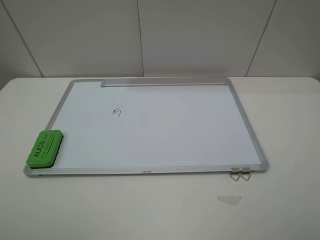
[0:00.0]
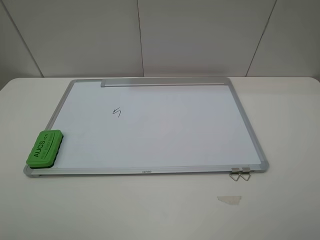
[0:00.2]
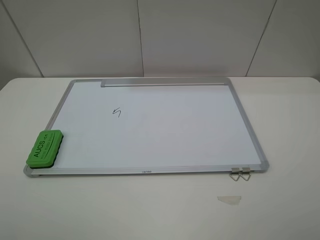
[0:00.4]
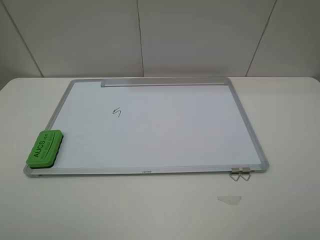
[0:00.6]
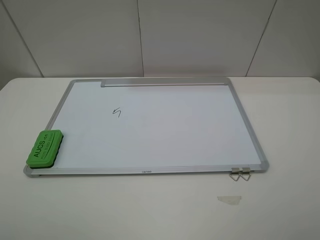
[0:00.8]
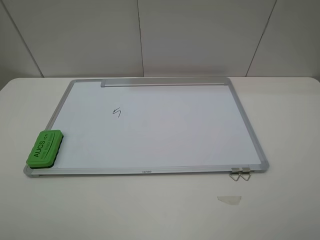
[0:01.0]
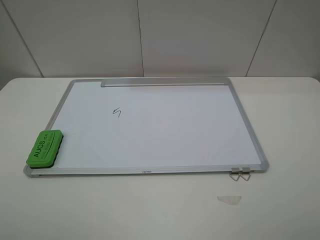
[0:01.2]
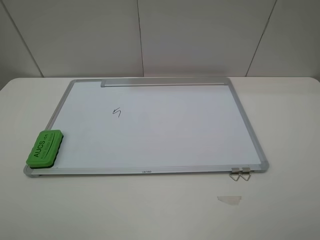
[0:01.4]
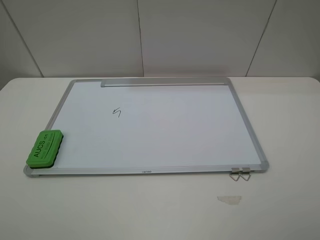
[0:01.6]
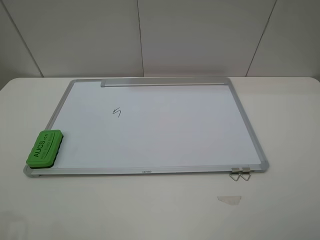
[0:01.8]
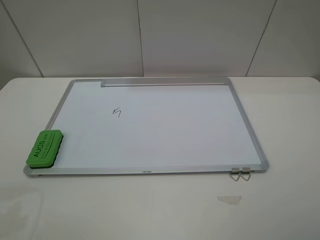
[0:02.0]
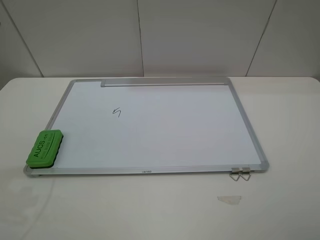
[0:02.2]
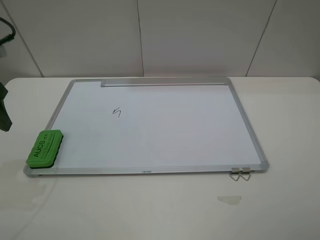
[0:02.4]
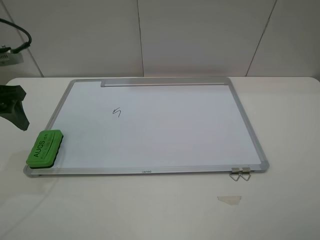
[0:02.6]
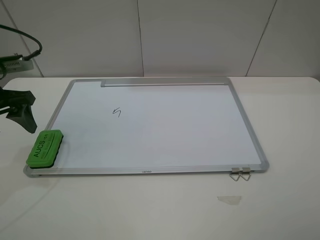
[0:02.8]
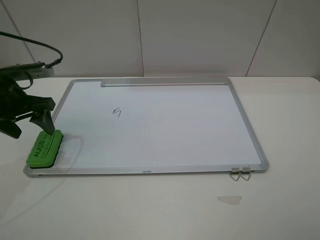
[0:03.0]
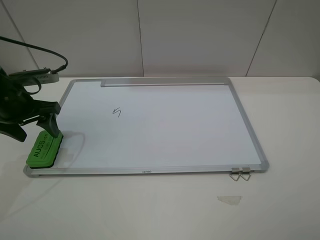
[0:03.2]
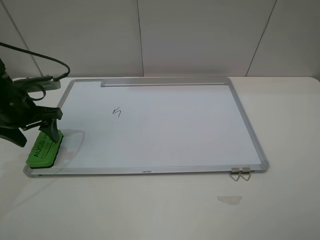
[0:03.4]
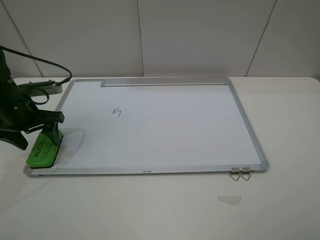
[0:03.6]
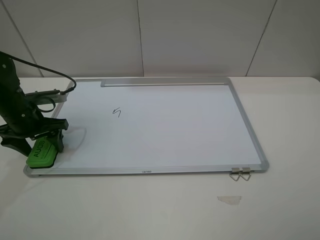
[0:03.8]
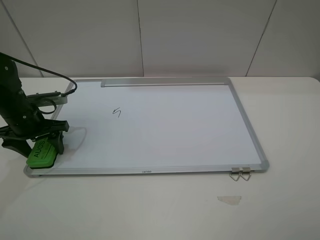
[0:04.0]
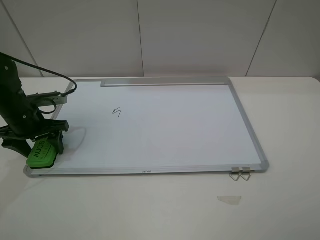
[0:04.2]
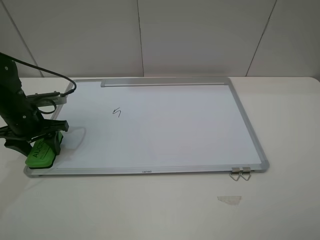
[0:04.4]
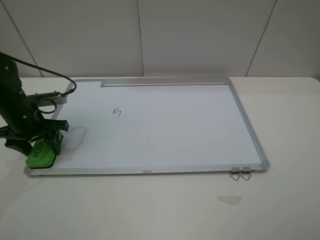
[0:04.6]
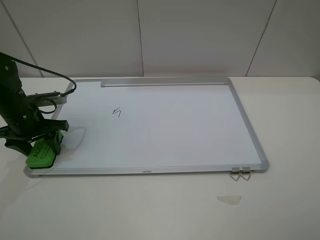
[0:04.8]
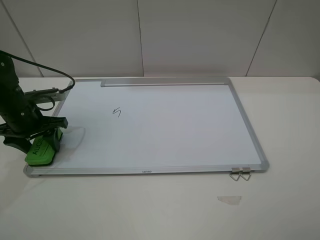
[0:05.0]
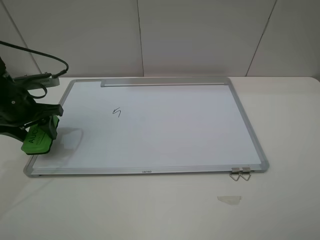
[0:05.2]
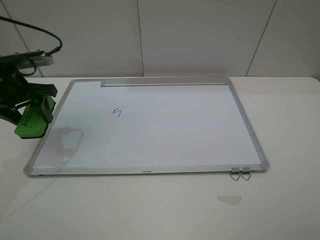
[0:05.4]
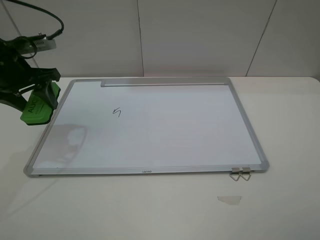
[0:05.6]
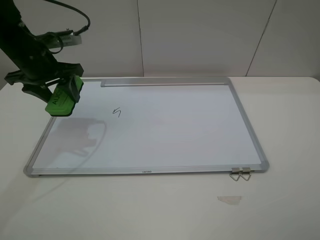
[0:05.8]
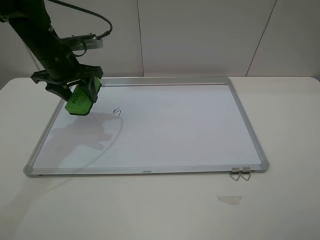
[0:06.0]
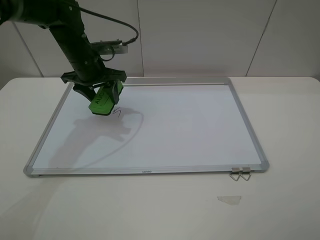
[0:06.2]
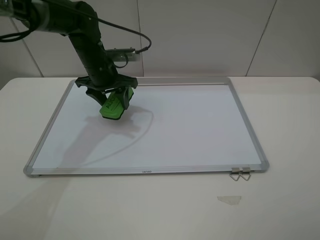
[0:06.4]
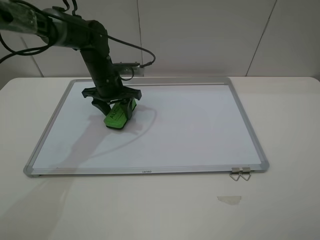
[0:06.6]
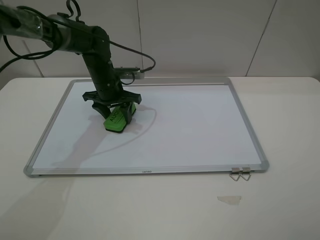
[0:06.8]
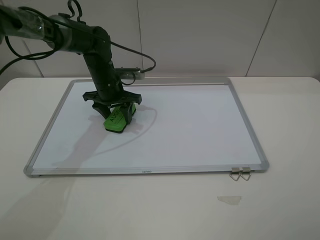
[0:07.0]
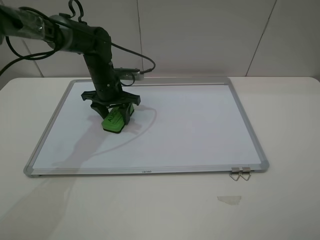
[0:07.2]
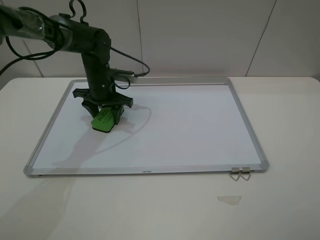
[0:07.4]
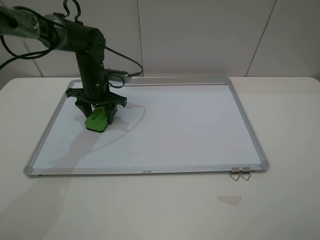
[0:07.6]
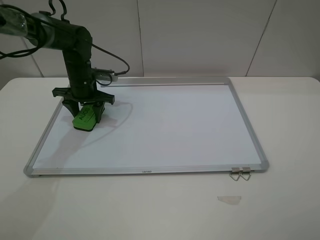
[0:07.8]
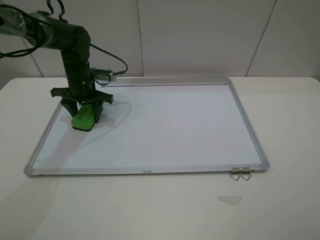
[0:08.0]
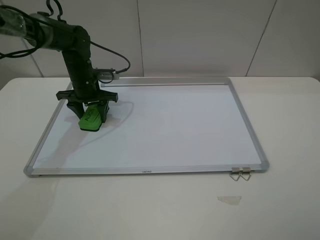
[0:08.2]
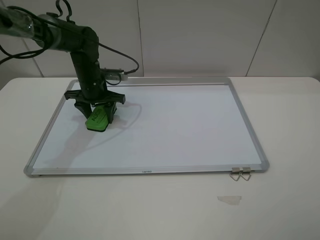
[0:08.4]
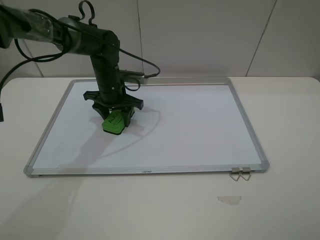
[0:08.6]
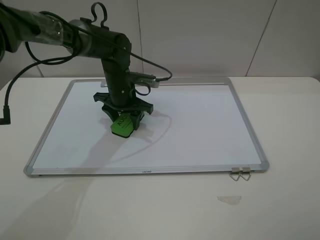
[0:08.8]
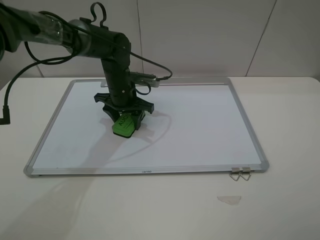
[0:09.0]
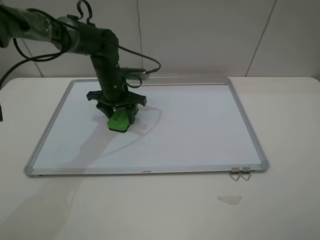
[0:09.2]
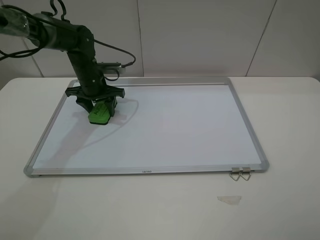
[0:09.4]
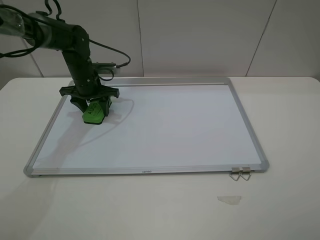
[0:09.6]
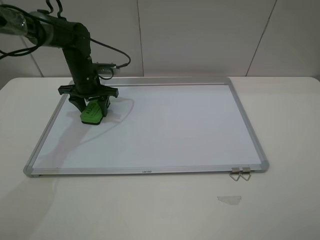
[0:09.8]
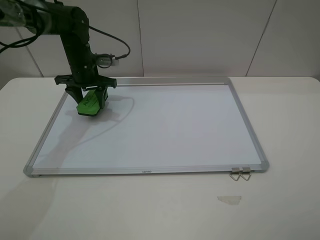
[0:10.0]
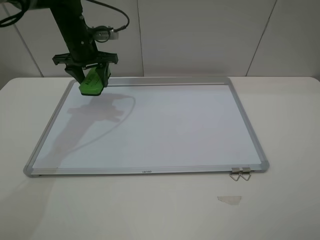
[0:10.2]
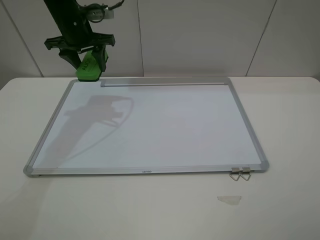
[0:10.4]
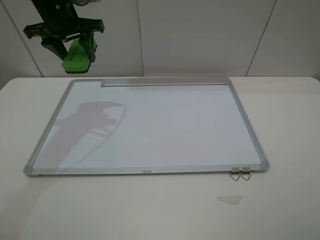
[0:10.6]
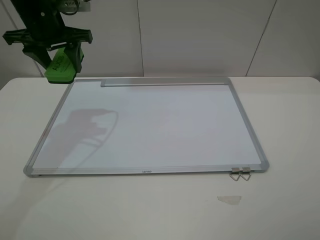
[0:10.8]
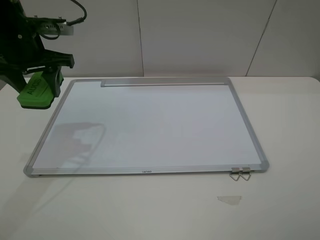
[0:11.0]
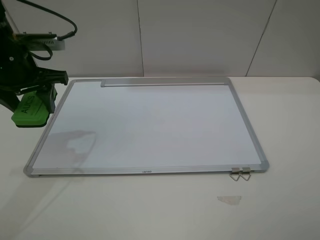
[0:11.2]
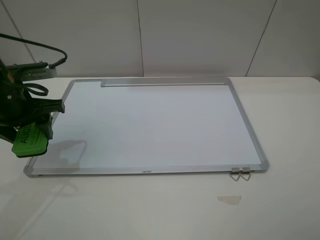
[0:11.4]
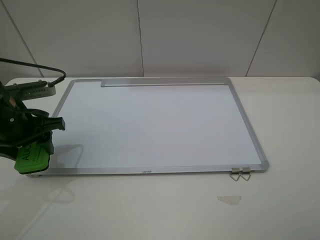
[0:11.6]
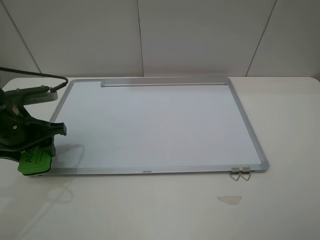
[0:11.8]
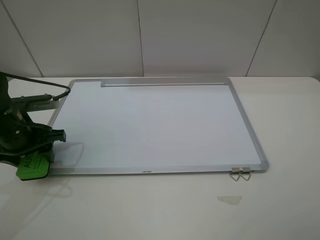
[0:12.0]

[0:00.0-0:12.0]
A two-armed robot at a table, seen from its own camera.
Step, 0:00.0 to 0:04.8: Grasp the eraser with the left gripper.
Step, 0:05.0 to 0:09.6: Grasp the eraser and wipe the blackboard with the left gripper.
0:01.6 to 0:03.0: The left gripper goes approximately 25 cm forward and downward.
0:03.0 to 0:04.4: The left gripper heads downward, covering some 10 cm, and closes up.
0:04.4 to 0:06.0: The left gripper goes approximately 15 cm upward, to the right and forward.
0:06.0 to 0:07.6: The left gripper travels downward by roughly 10 cm.
0:07.6 to 0:09.0: The left gripper is displaced to the right by roughly 5 cm.
0:09.0 to 0:10.4: The left gripper moves upward, to the left and forward, some 20 cm.
0:10.4 to 0:12.0: The left gripper is displaced backward and downward by approximately 25 cm.

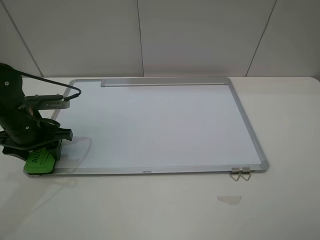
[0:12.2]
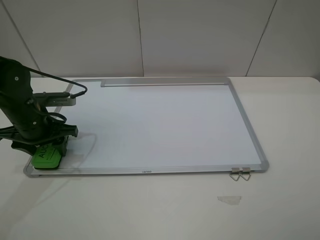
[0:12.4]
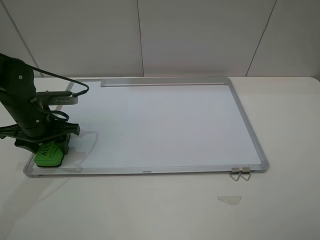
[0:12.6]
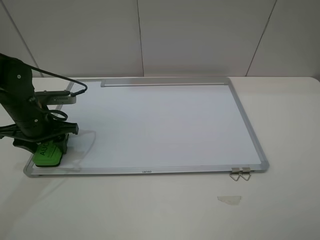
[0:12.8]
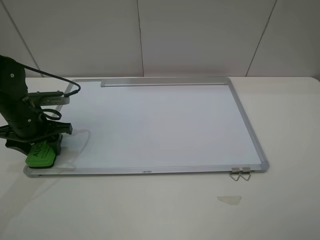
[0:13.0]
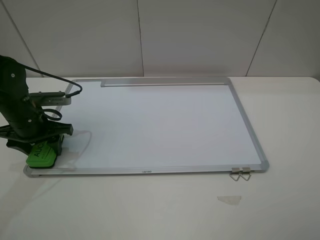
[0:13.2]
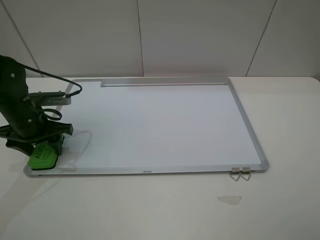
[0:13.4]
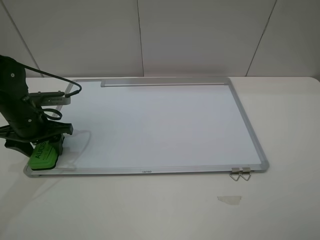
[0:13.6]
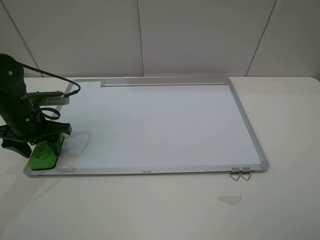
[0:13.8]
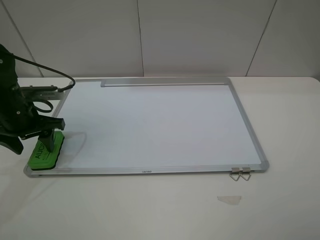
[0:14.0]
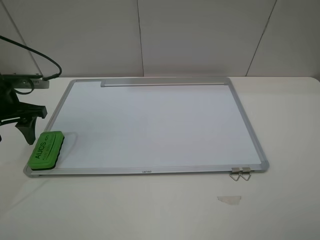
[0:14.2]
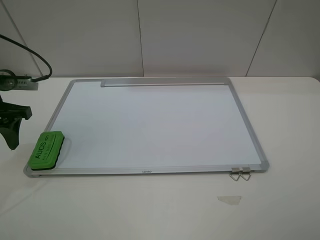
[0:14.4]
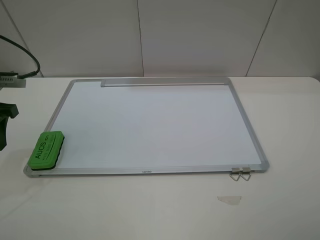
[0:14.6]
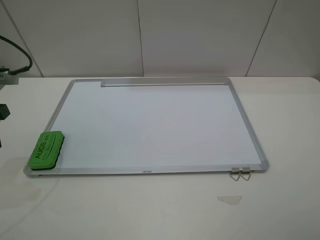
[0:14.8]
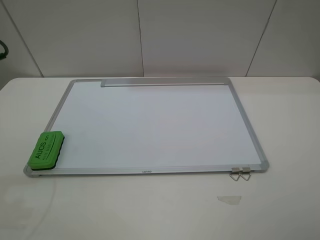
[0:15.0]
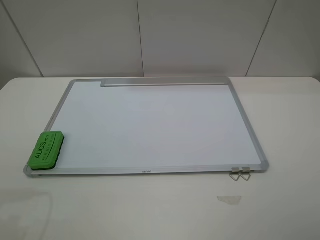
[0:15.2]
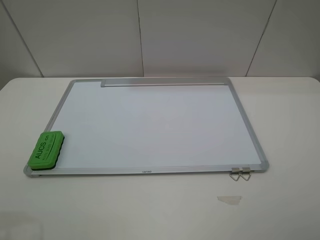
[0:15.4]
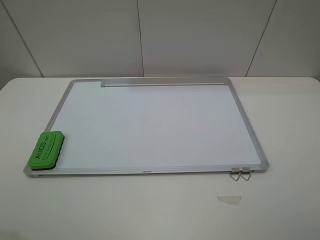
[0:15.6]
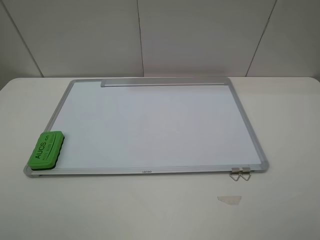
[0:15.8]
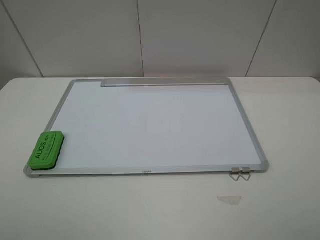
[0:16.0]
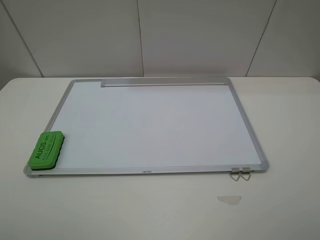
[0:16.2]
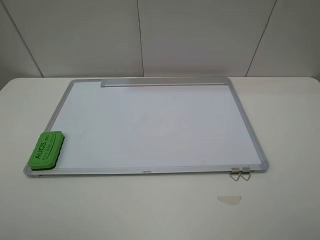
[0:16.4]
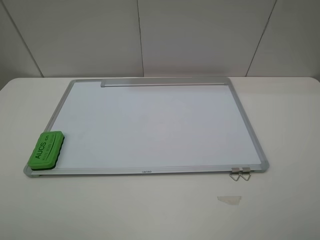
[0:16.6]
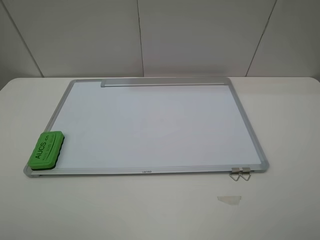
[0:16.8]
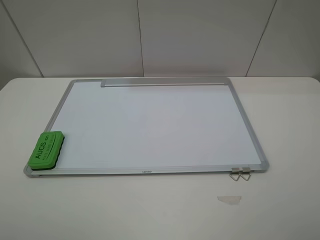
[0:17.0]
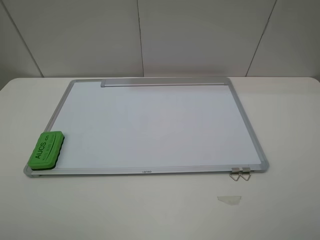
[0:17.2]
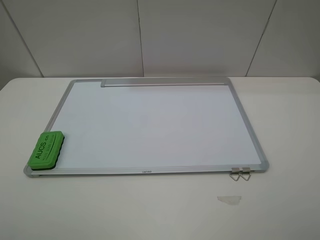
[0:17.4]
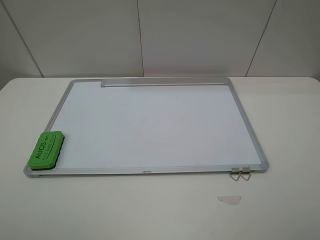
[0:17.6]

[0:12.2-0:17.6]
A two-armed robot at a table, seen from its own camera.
0:12.2 to 0:13.6: The left gripper opens.
0:13.6 to 0:15.0: The left gripper heads upward and backward, covering roughly 15 cm.
